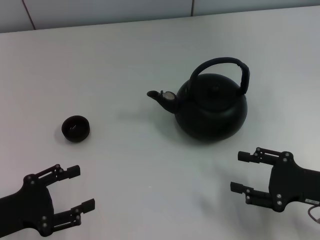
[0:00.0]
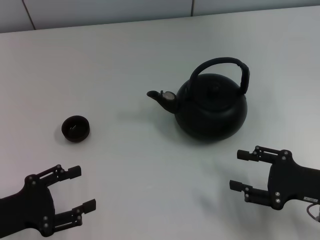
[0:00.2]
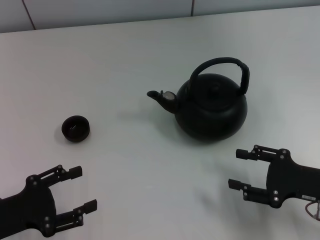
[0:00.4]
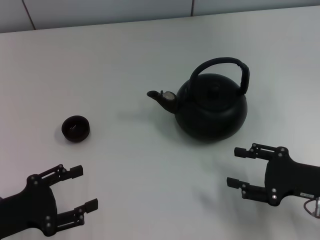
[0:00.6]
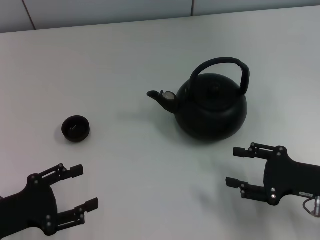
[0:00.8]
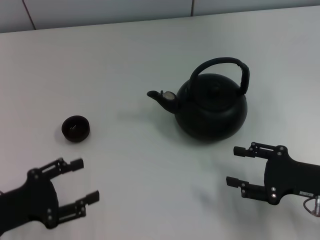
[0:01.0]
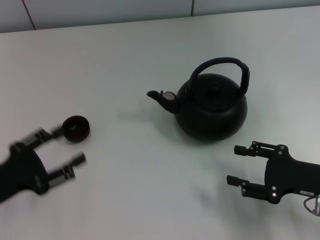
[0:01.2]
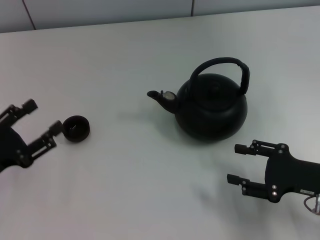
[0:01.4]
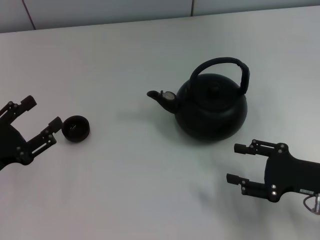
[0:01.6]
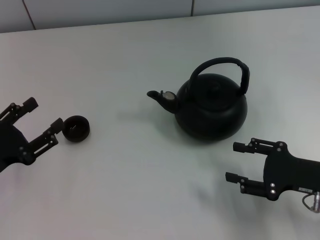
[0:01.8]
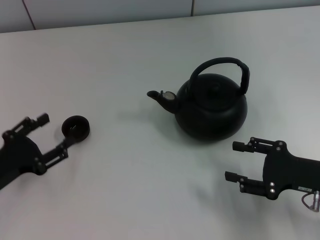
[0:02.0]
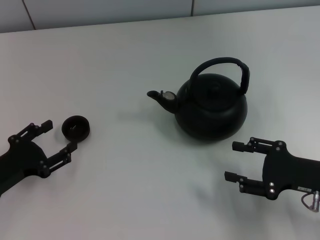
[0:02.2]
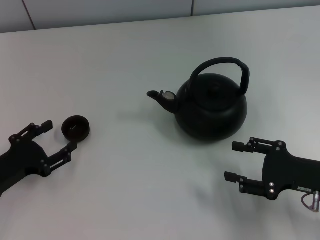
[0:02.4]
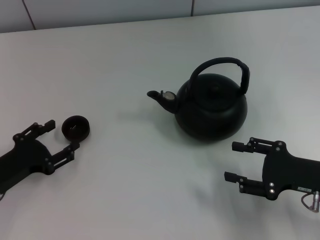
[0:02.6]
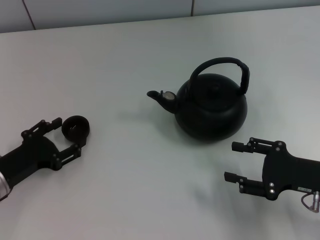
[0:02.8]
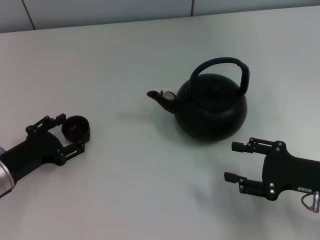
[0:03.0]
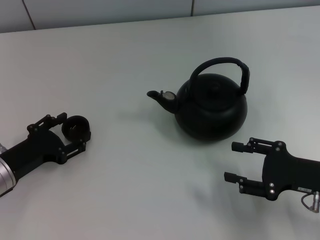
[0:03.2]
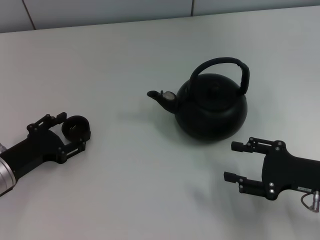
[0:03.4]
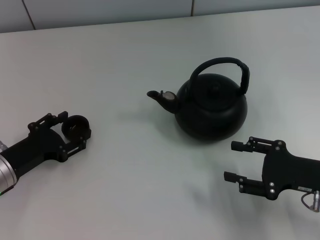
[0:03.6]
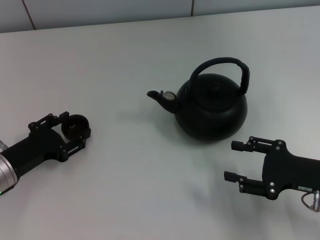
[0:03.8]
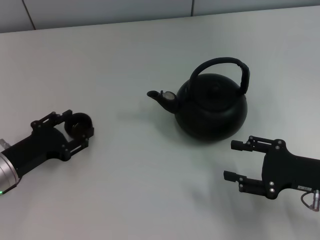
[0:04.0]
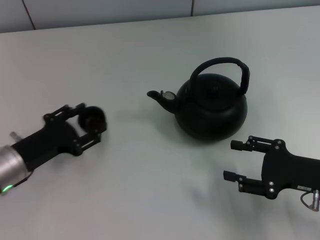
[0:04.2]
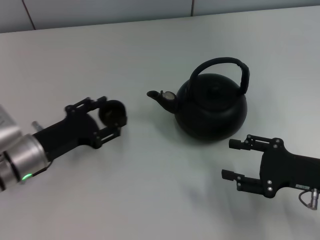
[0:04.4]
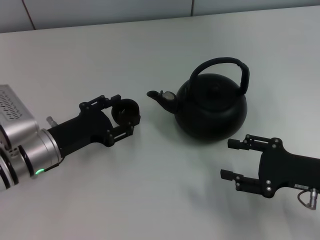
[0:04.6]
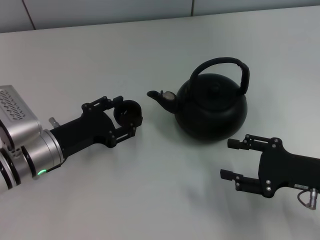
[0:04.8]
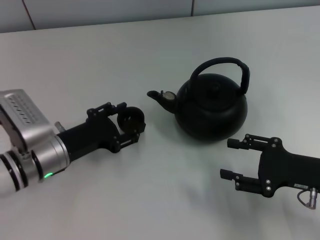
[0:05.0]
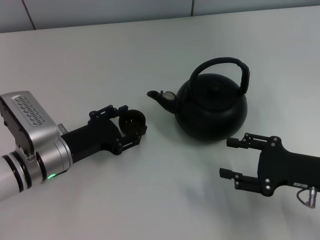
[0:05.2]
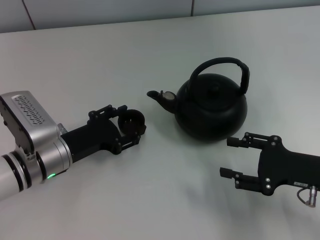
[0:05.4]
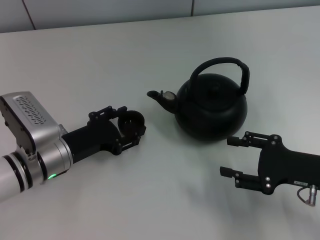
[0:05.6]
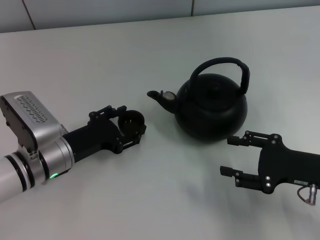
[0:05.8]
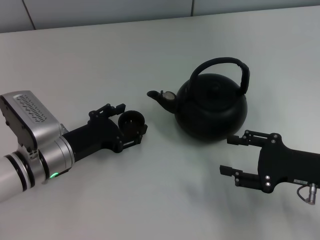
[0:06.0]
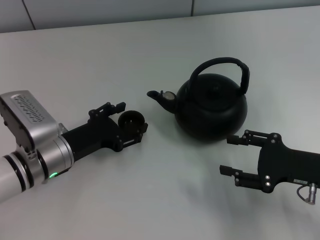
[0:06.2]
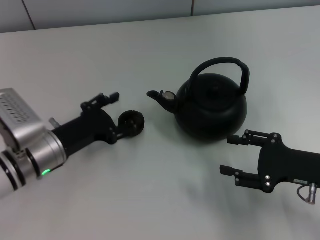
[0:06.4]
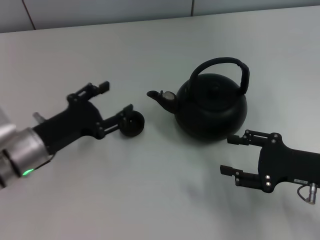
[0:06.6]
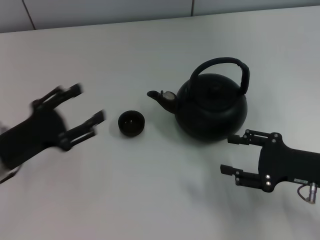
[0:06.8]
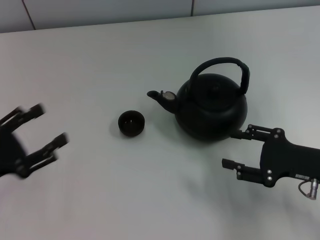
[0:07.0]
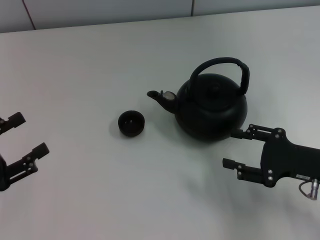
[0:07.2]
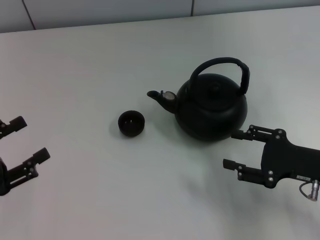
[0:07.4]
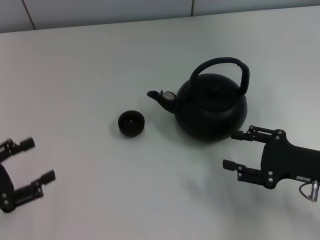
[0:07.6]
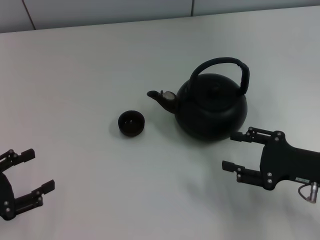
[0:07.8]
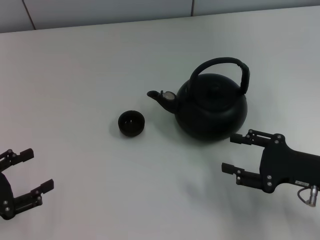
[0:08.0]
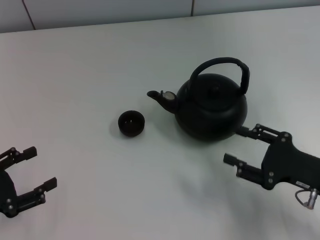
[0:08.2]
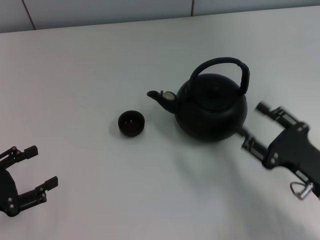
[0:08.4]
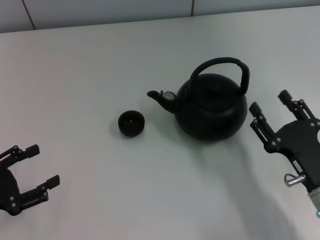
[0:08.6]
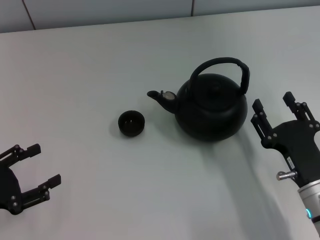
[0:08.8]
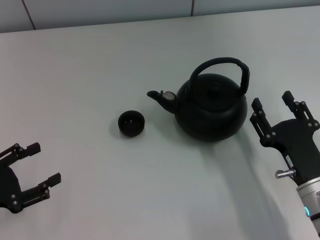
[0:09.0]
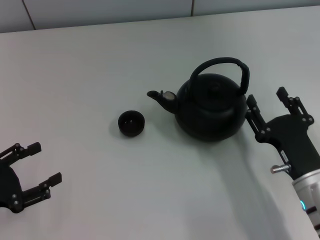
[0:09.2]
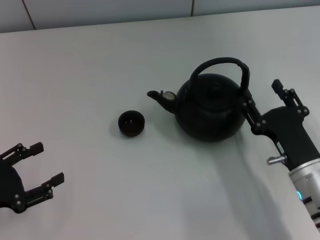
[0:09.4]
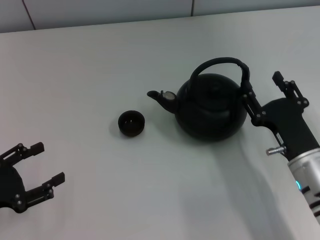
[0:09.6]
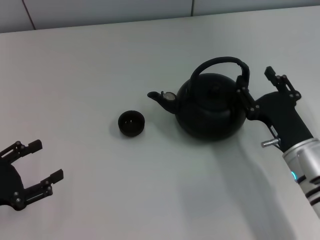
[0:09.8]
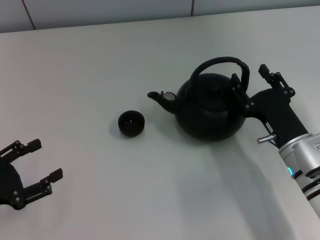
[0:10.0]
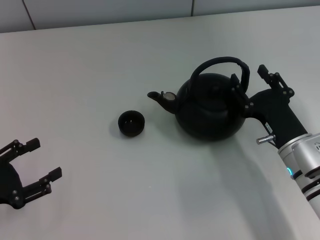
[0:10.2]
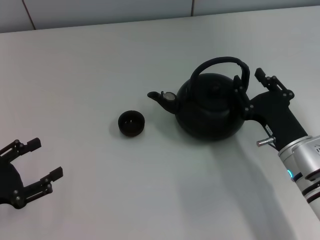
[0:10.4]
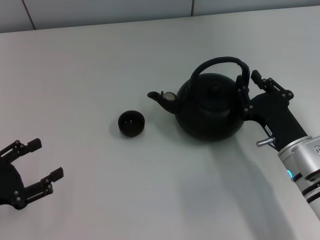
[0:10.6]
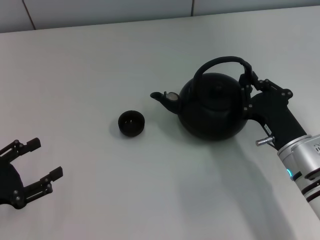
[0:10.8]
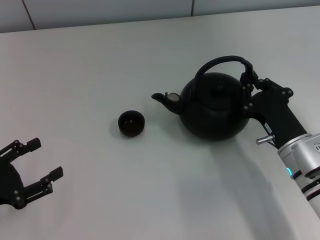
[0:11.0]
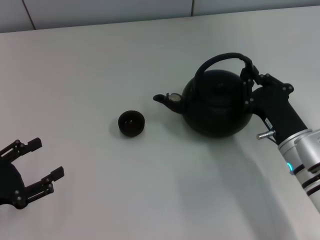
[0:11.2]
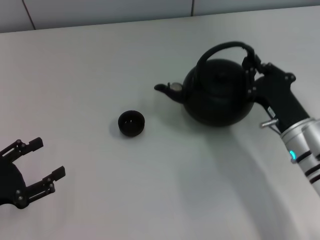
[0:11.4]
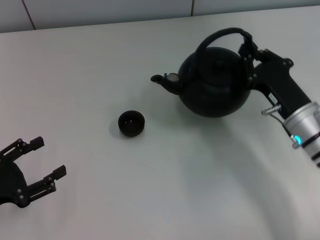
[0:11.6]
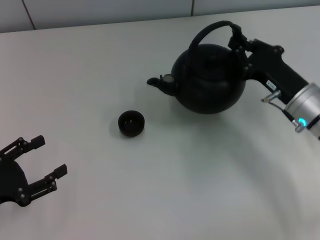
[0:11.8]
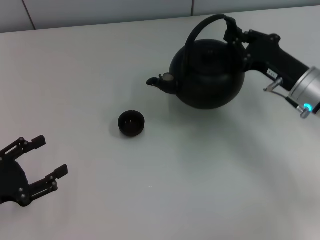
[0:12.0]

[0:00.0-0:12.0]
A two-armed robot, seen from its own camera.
Task of the whole recording: Grasp the handle of the teapot with one hand and pour tea into the teacup.
Step, 0:00.0 to 0:04.2: Pick up the teacup with the left gripper.
Step, 0:04.4 to 0:06.6: Place the teacup in the center of view with the left gripper.
Step, 0:07.0 to 0:11.6: Pick up the teapot with the right gripper.
0:01.6 to 0:03.0: The left gripper changes place by roughly 5 cm.
0:03.0 to 0:04.4: The left gripper moves to the right, approximately 5 cm.
0:04.4 to 0:06.0: The grippers make only small movements.
0:06.0 to 0:07.6: The left gripper goes roughly 20 cm to the left and backward.
0:07.6 to 0:09.0: The right gripper goes some 10 cm to the left.
0:09.0 to 0:10.4: The right gripper heads forward, covering some 5 cm.
0:10.4 to 0:12.0: The right gripper travels forward and upward by roughly 10 cm, and closes up.

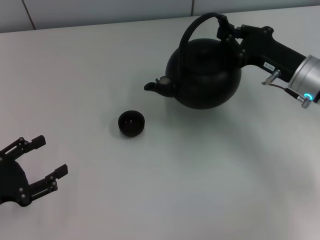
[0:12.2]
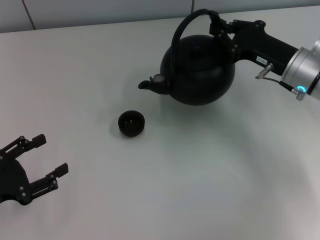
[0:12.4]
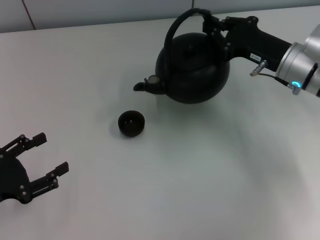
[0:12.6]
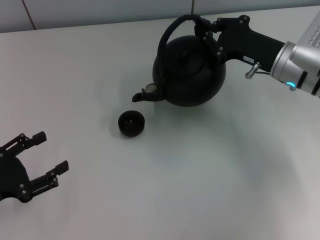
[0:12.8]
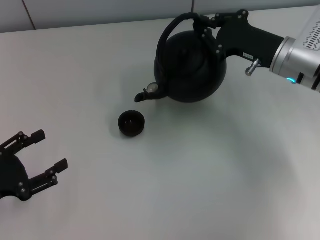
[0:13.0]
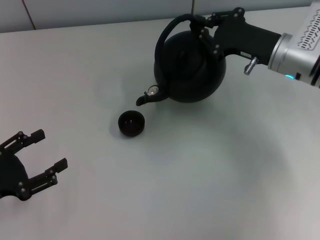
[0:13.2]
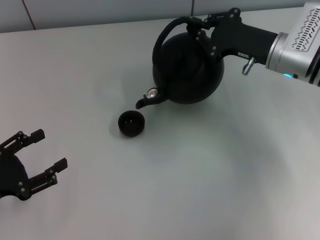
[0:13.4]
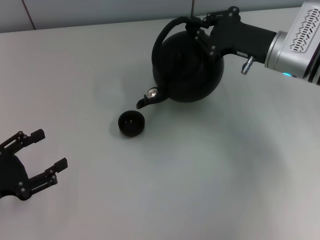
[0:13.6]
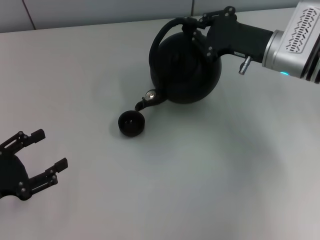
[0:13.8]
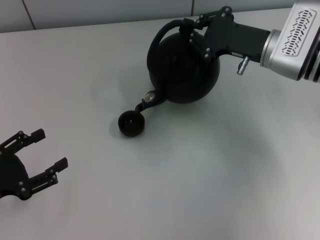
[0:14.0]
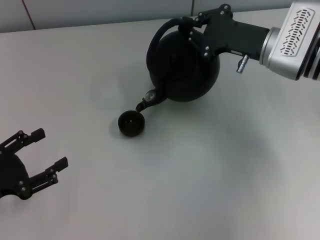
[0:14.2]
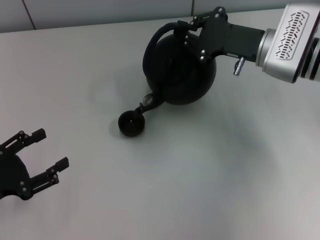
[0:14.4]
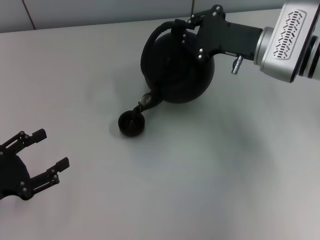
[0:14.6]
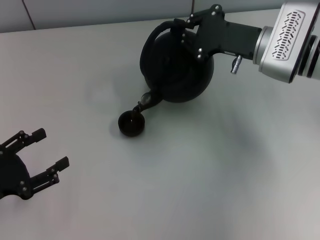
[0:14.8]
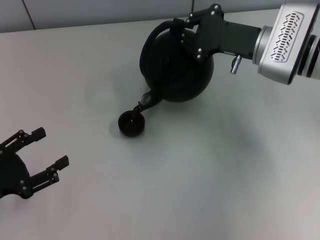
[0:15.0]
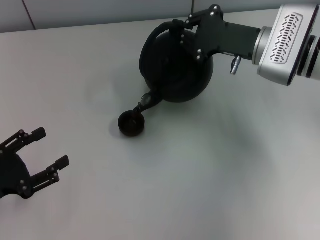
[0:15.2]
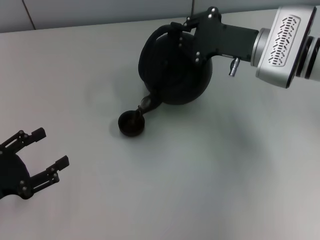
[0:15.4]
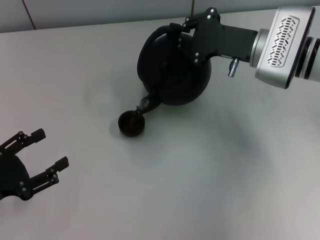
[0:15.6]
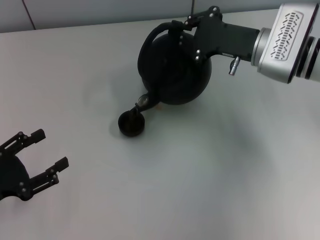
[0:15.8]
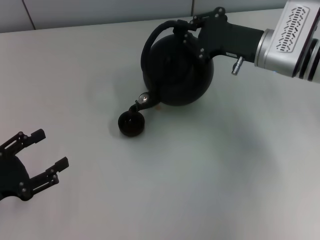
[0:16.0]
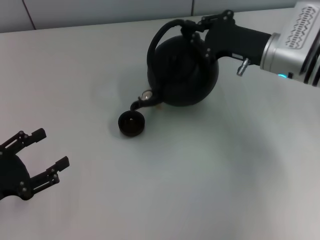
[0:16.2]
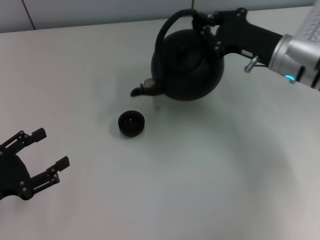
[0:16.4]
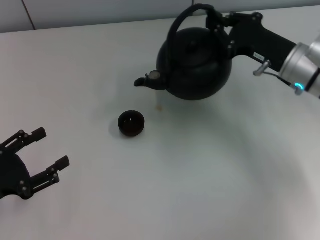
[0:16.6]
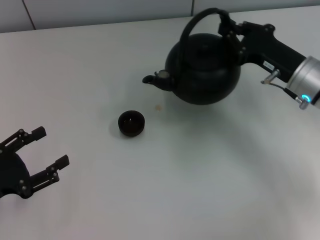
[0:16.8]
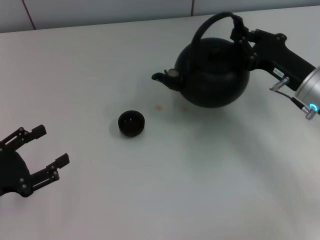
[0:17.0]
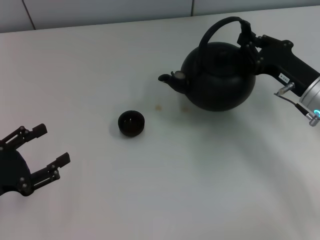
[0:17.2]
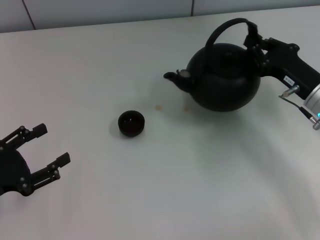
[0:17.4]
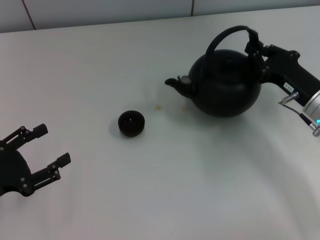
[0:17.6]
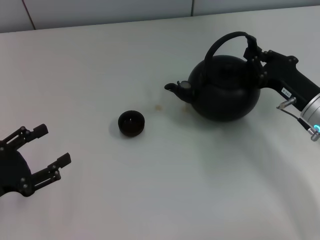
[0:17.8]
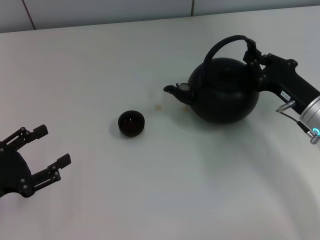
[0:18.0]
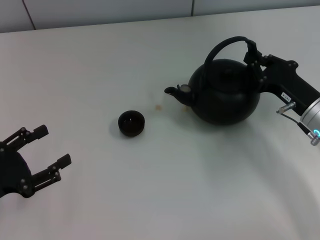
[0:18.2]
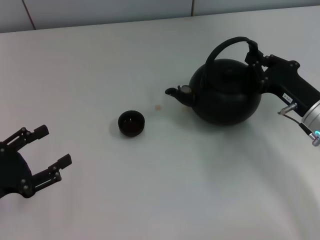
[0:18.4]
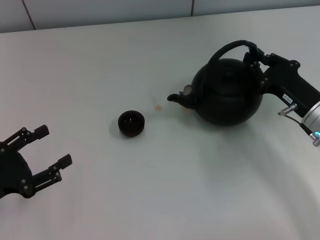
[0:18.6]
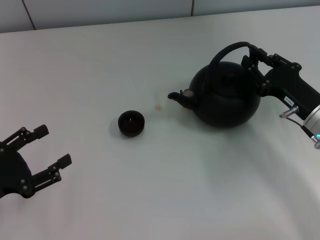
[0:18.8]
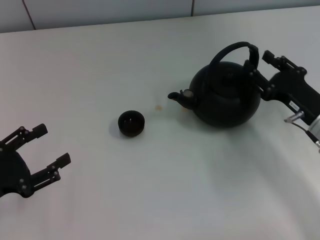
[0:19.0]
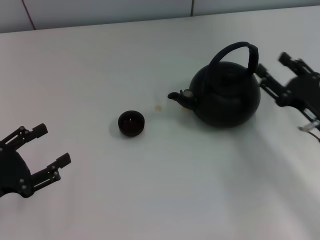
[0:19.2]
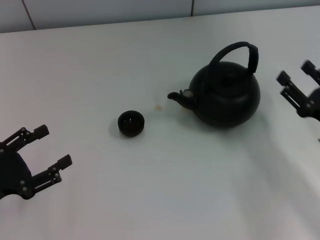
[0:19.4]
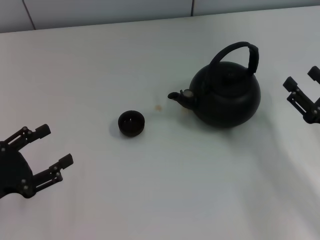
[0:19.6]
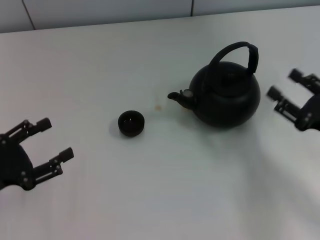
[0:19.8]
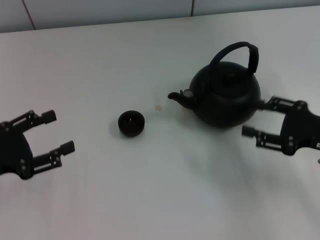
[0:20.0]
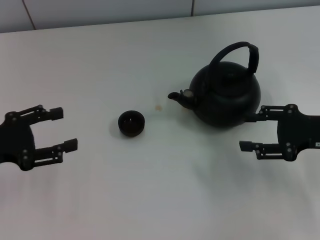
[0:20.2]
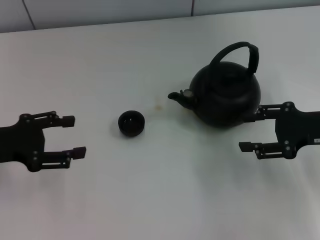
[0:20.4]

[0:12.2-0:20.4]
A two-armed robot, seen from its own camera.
Task of the whole recording: Grasp the handle of the teapot with one hand and pour tea into the teacup.
Step, 0:17.2 to 0:19.4: Put down the teapot with the right gripper.
0:12.2 to 0:13.8: The right gripper moves about 5 cm.
0:13.8 to 0:15.4: The grippers make only small movements.
0:15.4 to 0:17.2: The right gripper is displaced backward, to the right and downward by about 10 cm.
0:17.2 to 0:18.8: The grippers make only small movements.
0:18.8 to 0:20.4: The left gripper is displaced forward and upward by roughly 10 cm; the right gripper travels upward by approximately 5 cm, and opens up.
